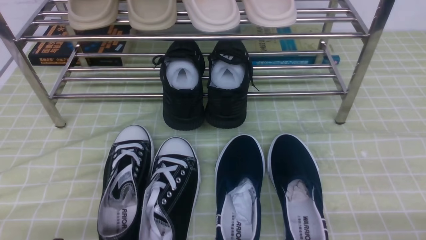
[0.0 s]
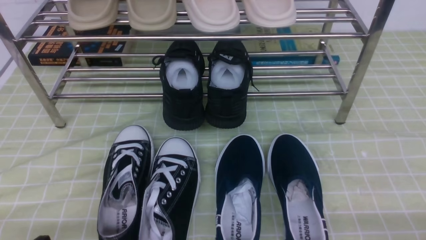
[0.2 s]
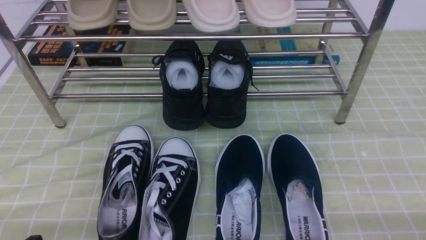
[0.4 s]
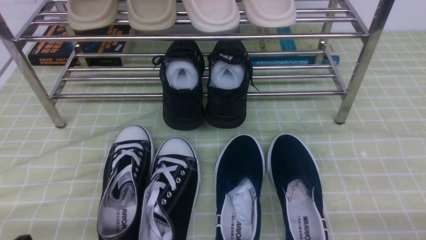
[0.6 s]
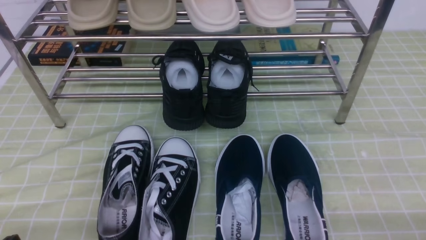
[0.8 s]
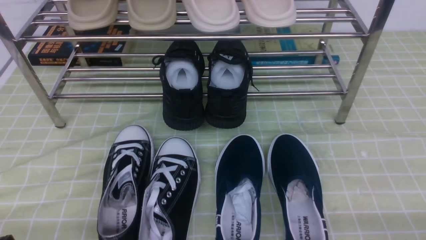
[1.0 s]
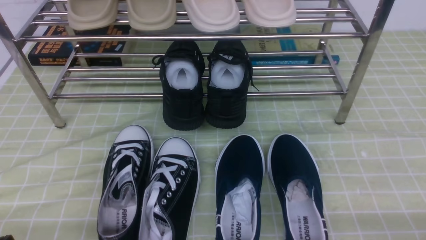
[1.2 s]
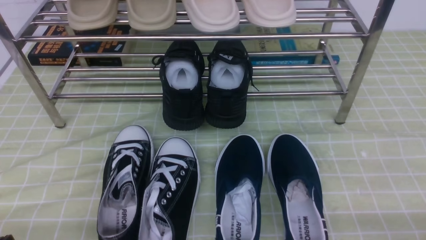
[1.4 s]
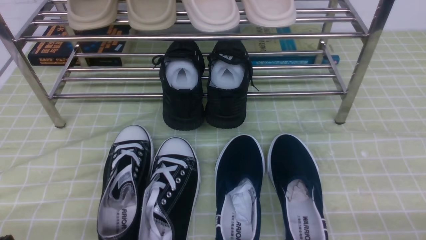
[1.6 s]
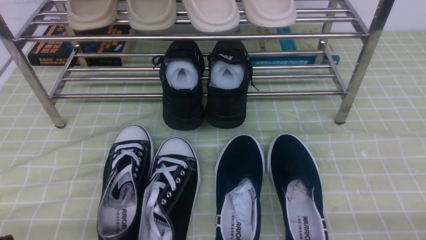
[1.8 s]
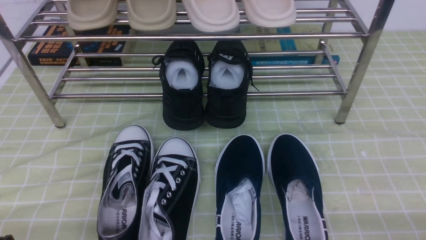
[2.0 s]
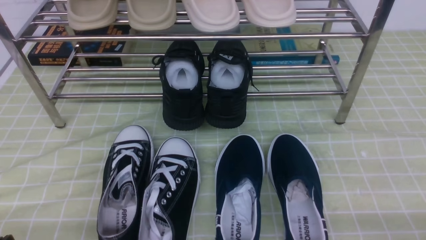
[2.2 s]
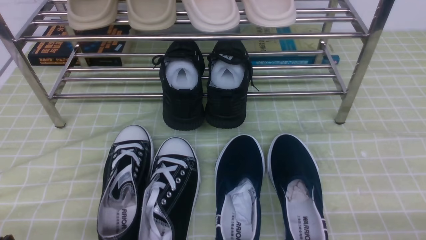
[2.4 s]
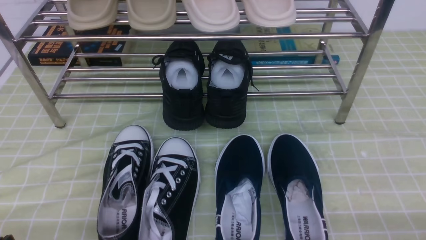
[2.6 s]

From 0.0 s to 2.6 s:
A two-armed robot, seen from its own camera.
From 1.2 s to 2.6 s: Both grippers stay put.
